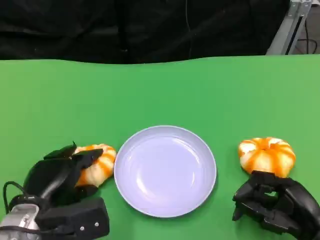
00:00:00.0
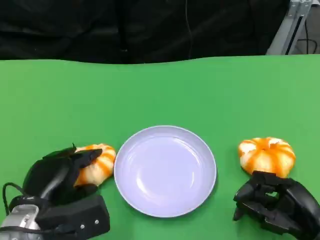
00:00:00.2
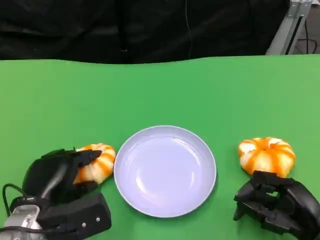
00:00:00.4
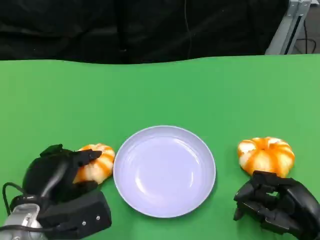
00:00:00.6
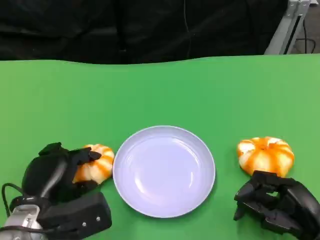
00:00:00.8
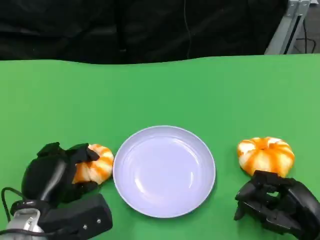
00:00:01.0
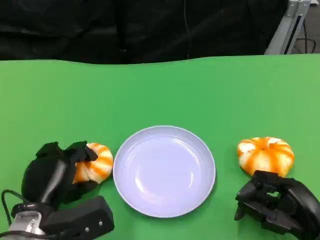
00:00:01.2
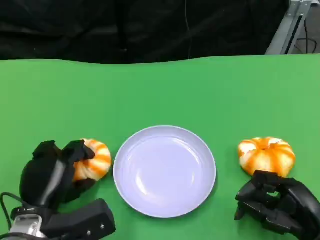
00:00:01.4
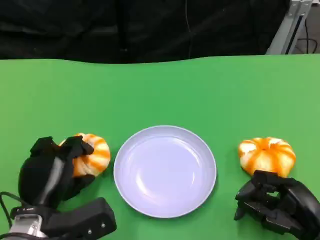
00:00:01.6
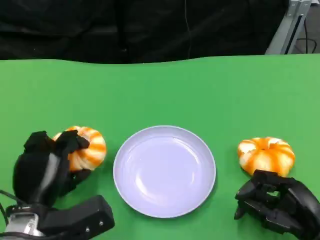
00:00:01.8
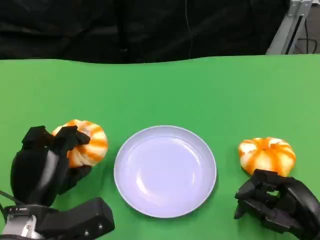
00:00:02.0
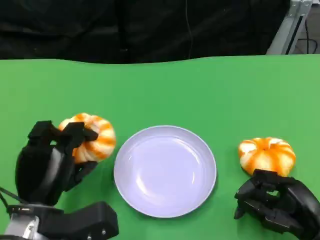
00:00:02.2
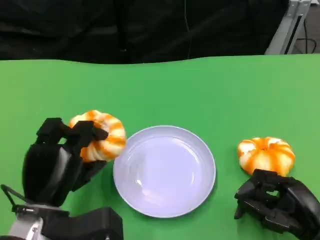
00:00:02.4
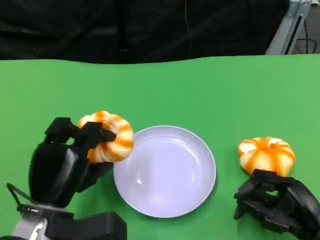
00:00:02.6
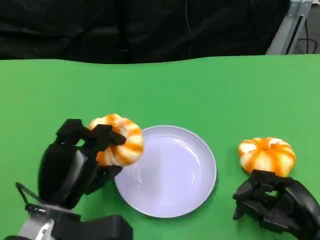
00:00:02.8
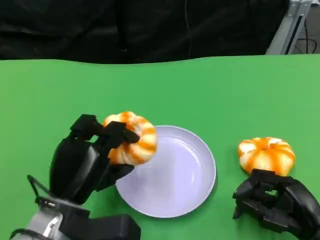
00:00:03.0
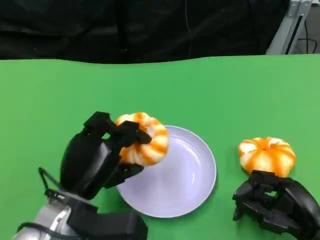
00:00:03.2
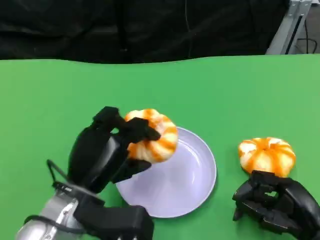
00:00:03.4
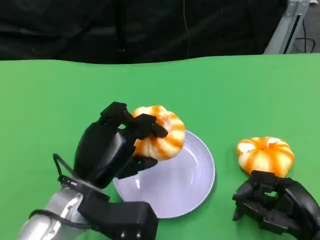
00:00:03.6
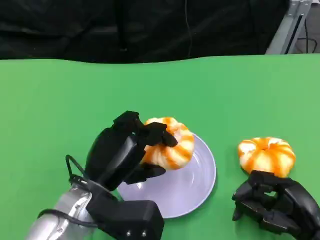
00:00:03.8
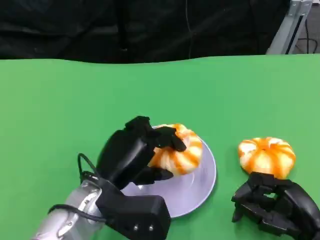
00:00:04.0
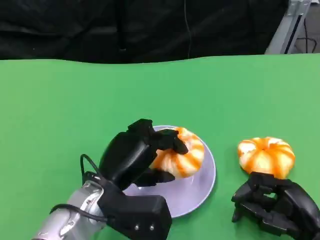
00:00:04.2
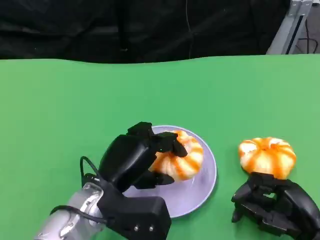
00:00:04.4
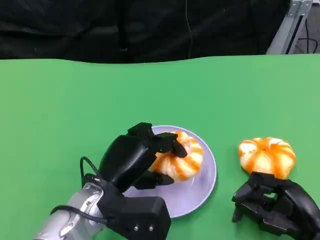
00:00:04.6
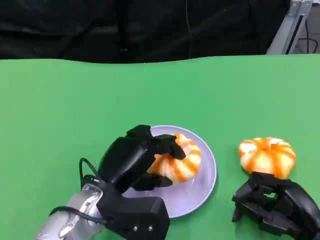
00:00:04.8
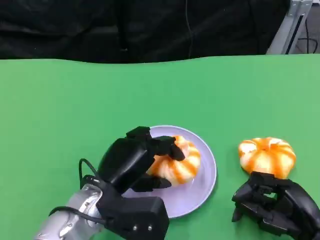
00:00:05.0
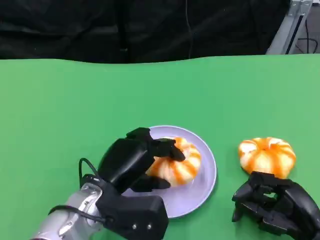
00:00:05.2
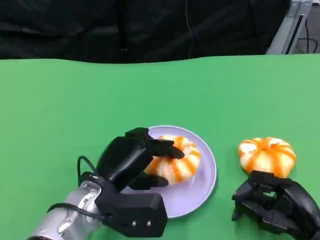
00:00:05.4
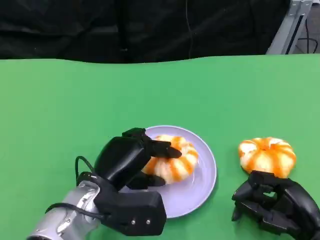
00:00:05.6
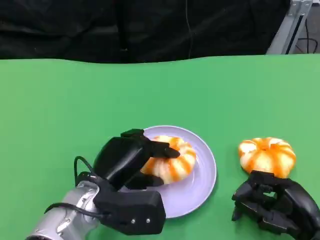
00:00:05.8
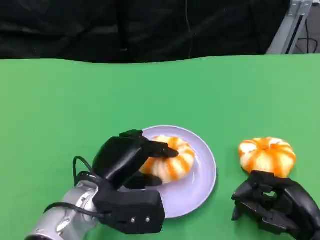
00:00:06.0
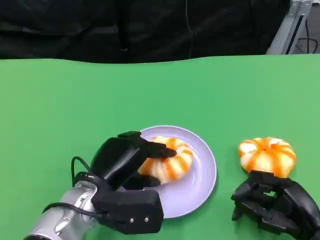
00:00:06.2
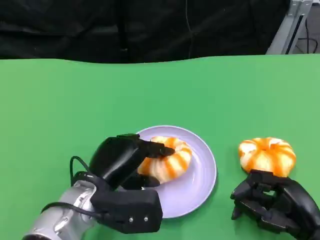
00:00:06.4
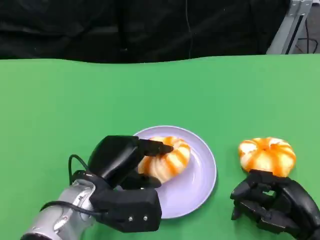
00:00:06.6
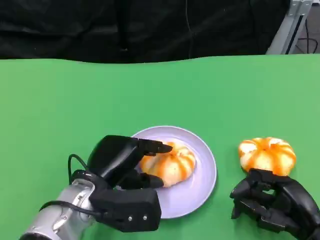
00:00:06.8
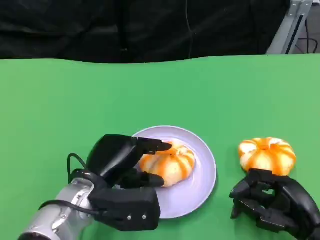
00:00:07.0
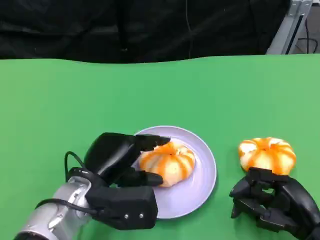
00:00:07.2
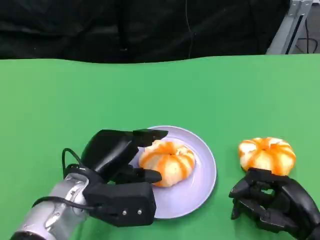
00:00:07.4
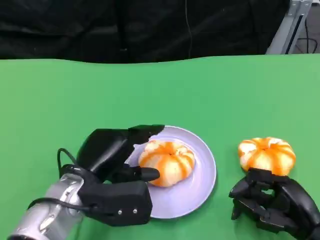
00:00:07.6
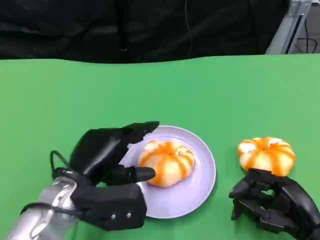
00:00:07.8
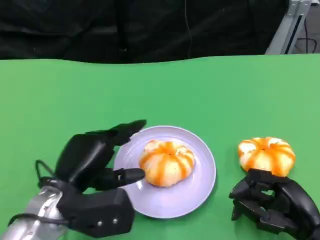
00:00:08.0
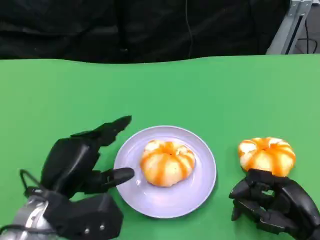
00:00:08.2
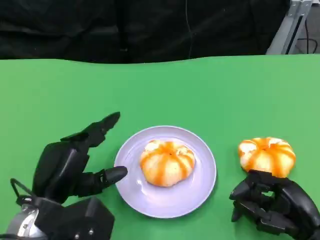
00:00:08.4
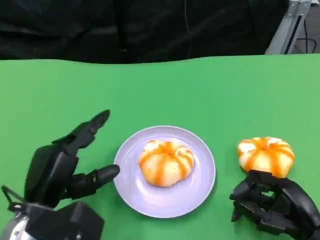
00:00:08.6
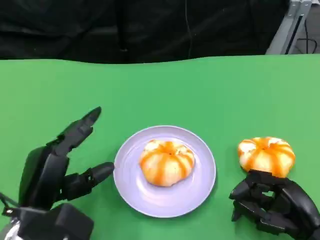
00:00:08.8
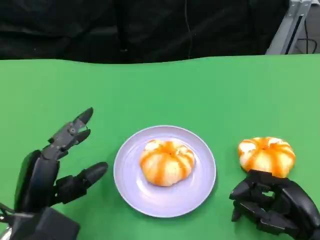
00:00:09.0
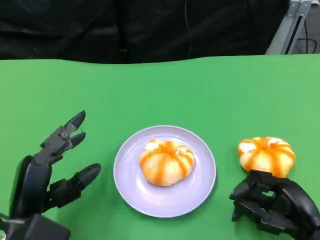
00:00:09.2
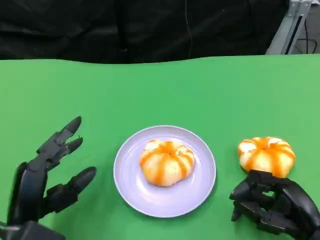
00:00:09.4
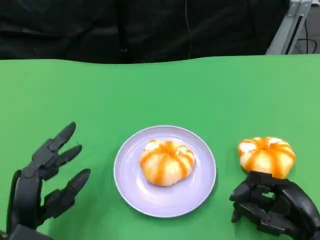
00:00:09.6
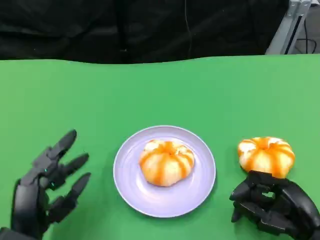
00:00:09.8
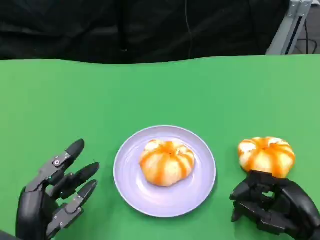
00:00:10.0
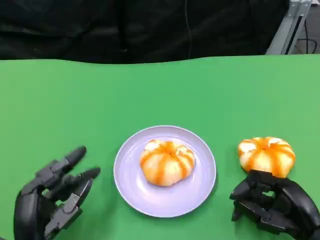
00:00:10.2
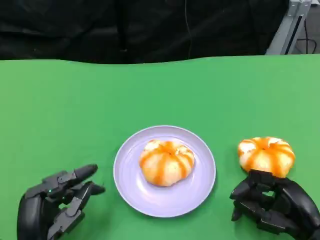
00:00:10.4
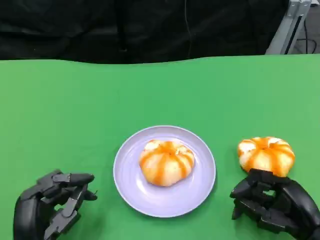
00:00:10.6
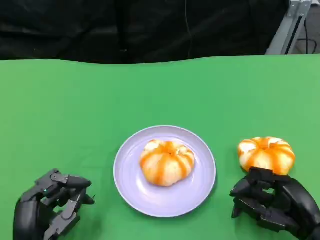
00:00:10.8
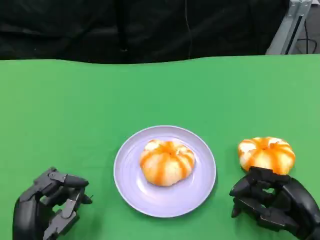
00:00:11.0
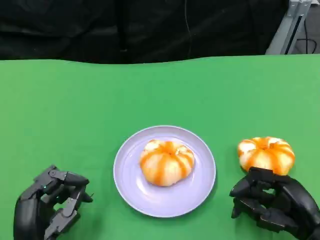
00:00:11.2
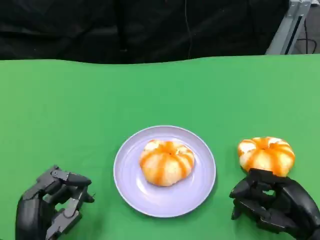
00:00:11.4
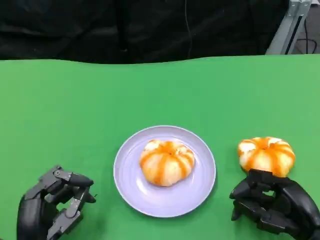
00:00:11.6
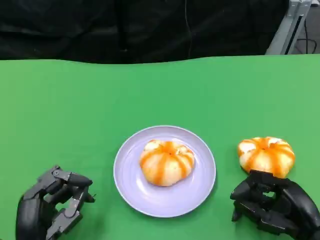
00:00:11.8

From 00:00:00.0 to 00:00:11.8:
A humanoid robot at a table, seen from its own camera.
Task of the whole recording: Grasp the bread from the table and place it into the plate.
From 00:00:00.0 to 00:00:01.4: The hands stay close to where they were, moving slightly.
From 00:00:01.4 to 00:00:03.0: The left hand heads upward, covering approximately 5 cm.
From 00:00:03.0 to 00:00:04.4: The left hand changes place by approximately 5 cm.
From 00:00:04.4 to 00:00:07.4: There are only small adjustments of the hands.
From 00:00:07.4 to 00:00:08.8: The left hand travels to the left and backward by some 10 cm.
From 00:00:08.8 to 00:00:10.4: The left hand travels downward by roughly 5 cm.
From 00:00:10.4 to 00:00:11.8: Both hands stay about where they are.

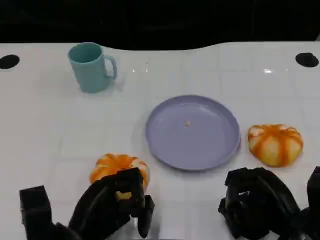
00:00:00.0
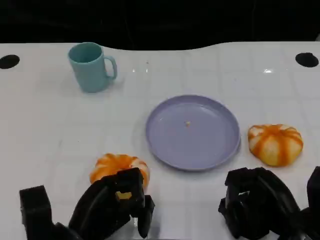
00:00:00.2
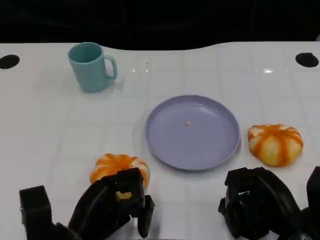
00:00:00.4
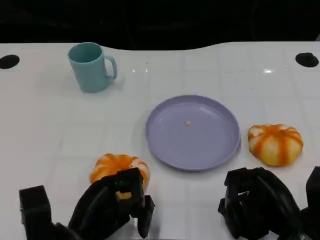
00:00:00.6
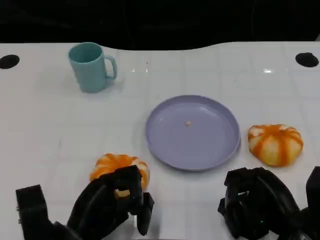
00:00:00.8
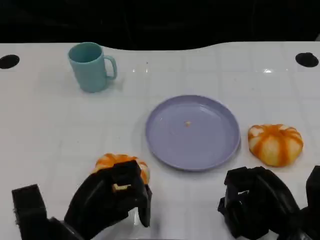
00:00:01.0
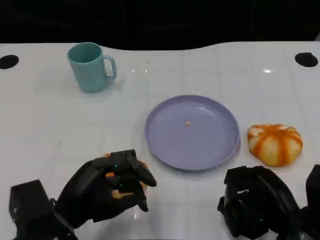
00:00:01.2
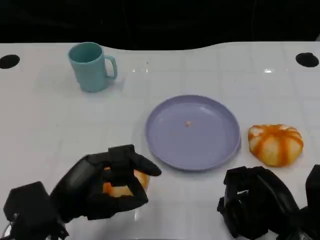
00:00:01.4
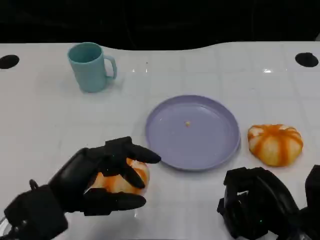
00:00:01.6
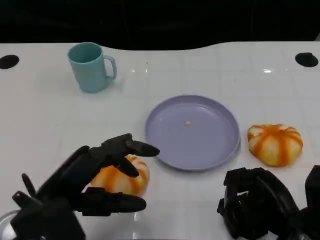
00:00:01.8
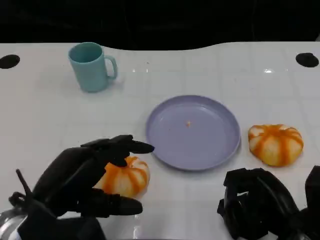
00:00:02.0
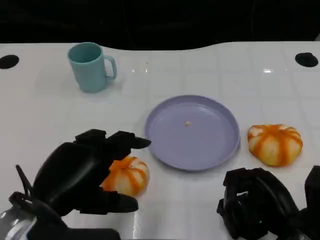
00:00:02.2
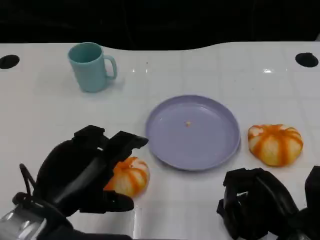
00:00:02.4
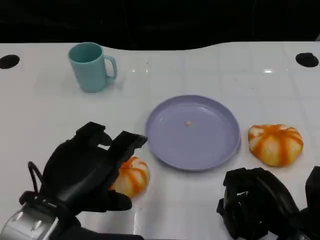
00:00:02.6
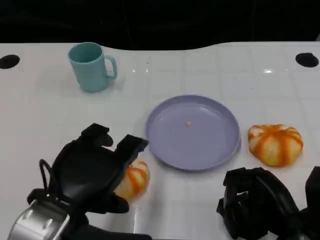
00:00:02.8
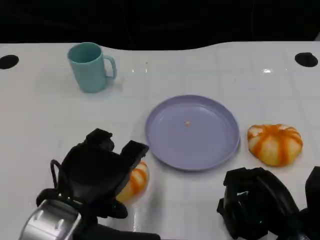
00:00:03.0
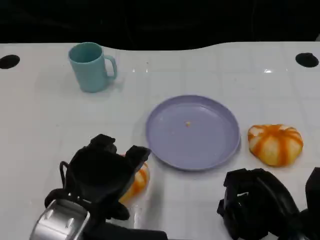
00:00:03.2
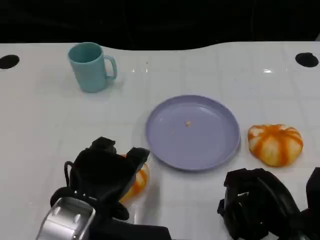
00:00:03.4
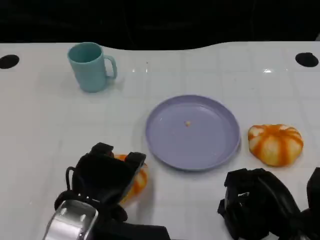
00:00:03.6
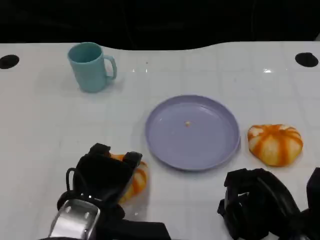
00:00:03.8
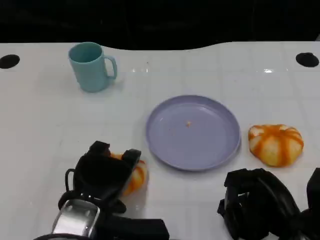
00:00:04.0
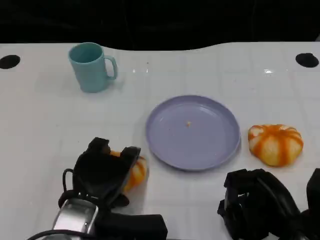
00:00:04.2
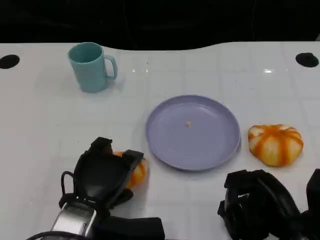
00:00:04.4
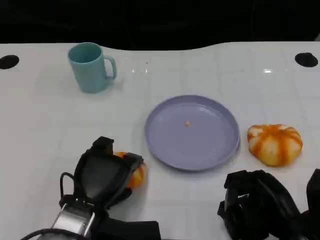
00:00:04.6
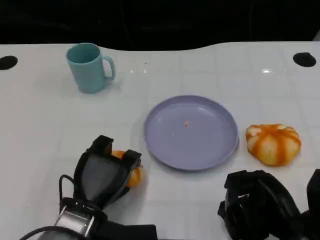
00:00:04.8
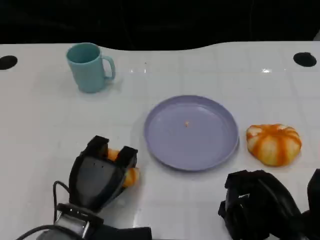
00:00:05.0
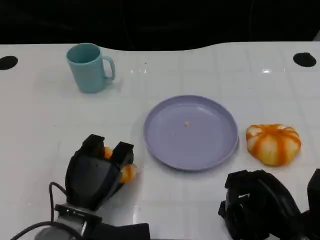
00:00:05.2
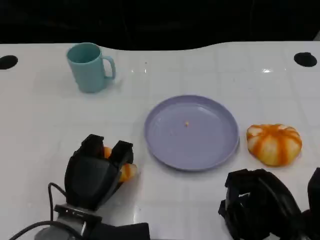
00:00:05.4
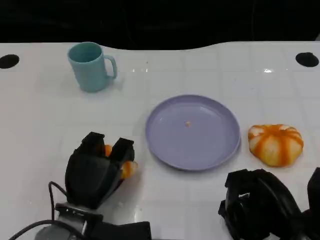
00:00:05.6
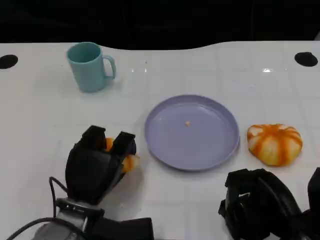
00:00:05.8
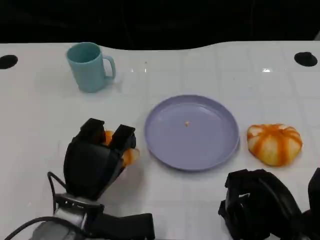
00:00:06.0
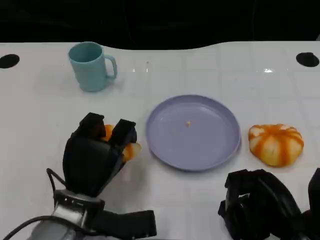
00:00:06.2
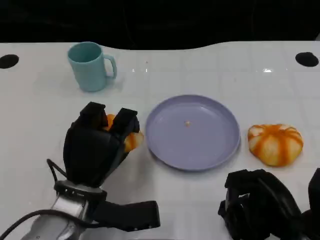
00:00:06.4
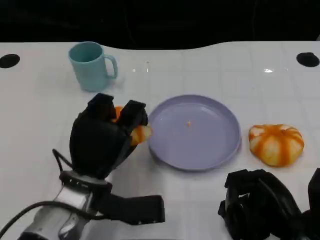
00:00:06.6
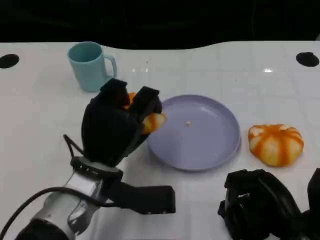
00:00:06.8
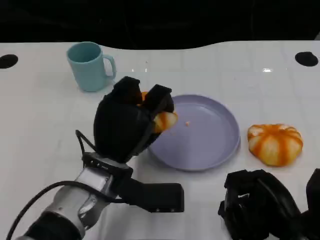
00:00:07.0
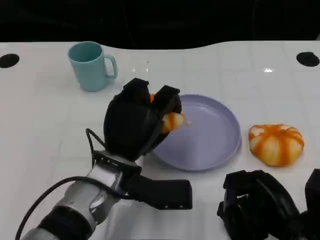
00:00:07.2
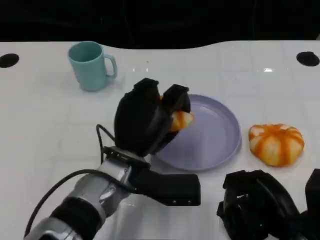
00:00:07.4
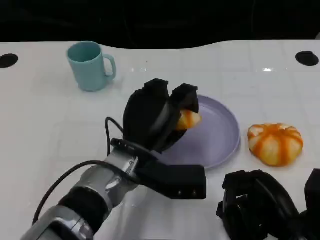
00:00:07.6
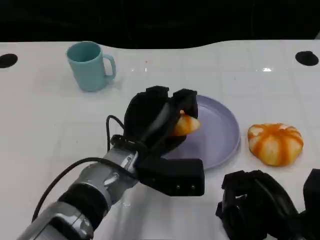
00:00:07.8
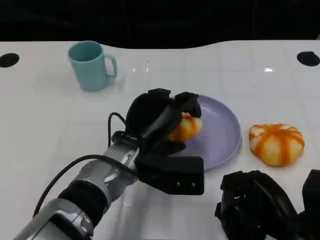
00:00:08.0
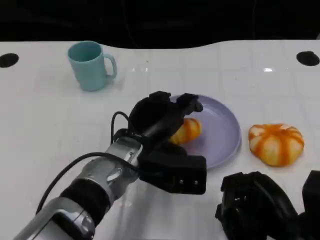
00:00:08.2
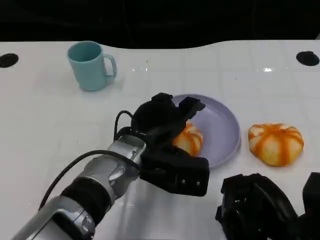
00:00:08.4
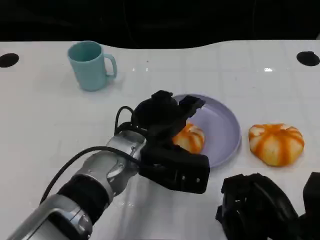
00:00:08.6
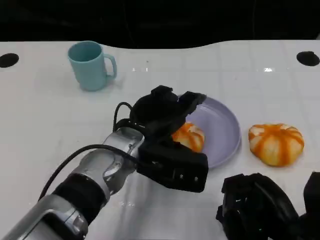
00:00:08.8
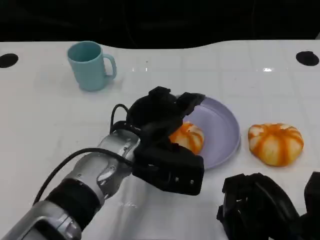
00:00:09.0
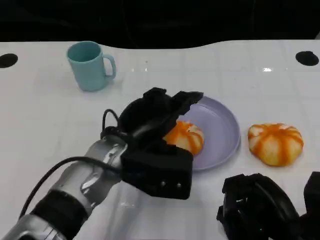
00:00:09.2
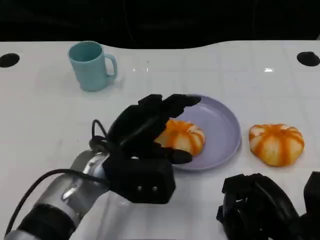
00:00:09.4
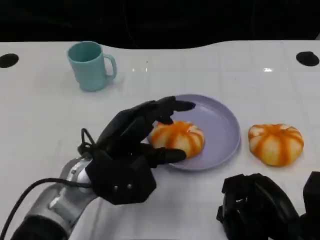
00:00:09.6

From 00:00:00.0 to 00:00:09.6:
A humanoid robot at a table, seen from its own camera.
Task of the whole recording: Grasp the bread from the table and place it into the plate.
From 00:00:00.0 to 00:00:01.6: The left hand goes roughly 10 cm upward.
From 00:00:01.6 to 00:00:03.2: The left hand travels to the right by about 5 cm.
From 00:00:03.2 to 00:00:04.8: The left hand shifts some 10 cm downward.
From 00:00:06.4 to 00:00:08.0: The left hand heads to the right, covering some 5 cm.
From 00:00:08.0 to 00:00:09.6: The left hand shifts about 5 cm to the left.

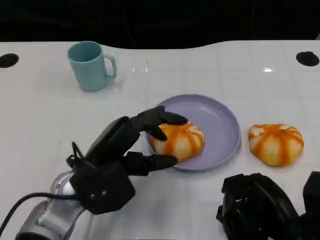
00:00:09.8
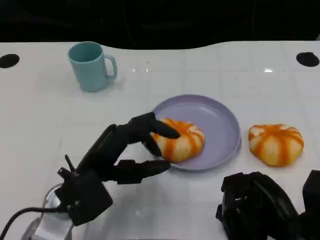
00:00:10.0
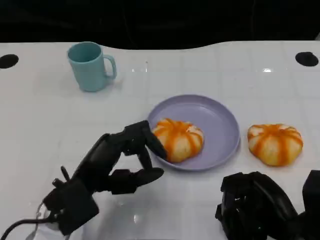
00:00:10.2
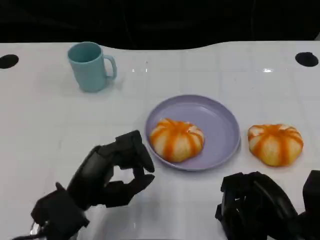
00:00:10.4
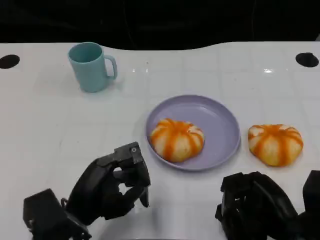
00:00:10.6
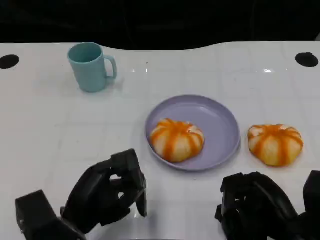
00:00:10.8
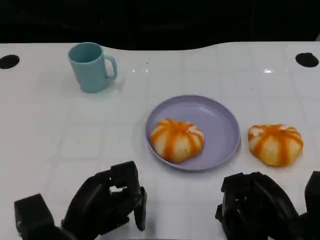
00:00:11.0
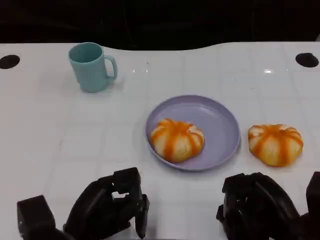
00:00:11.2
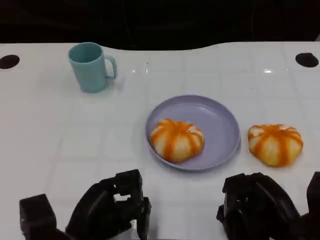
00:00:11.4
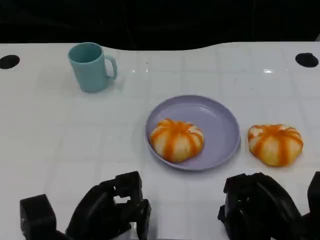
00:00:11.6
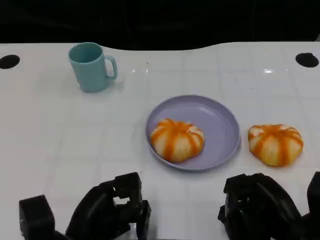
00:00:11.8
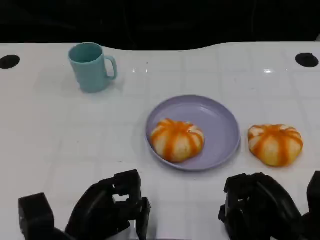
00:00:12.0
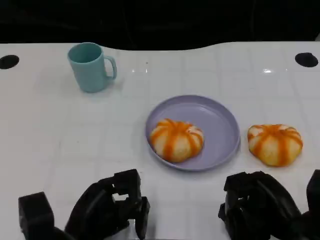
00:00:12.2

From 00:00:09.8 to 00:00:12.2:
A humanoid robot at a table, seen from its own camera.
Task of the whole recording: Grasp the bread from the table and place it into the plate.
From 00:00:09.8 to 00:00:11.0: The left hand heads backward and downward, covering some 10 cm.
From 00:00:11.0 to 00:00:12.2: The hands move only a little.
